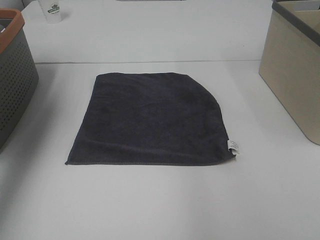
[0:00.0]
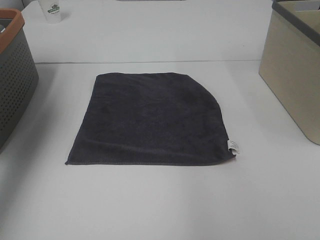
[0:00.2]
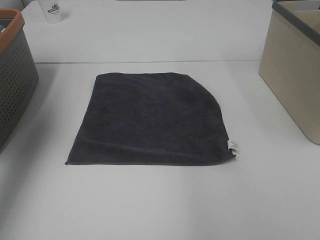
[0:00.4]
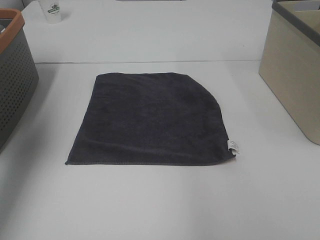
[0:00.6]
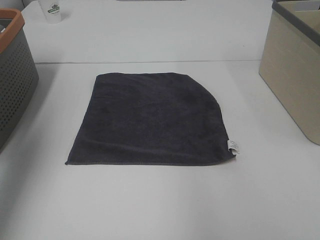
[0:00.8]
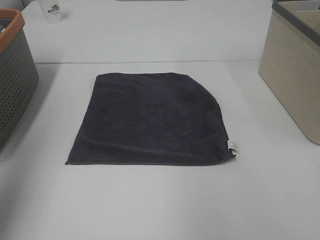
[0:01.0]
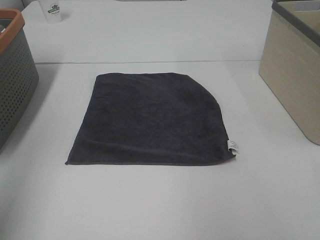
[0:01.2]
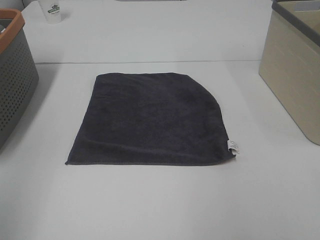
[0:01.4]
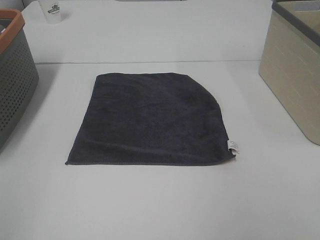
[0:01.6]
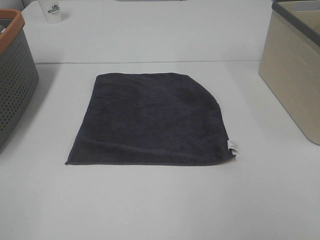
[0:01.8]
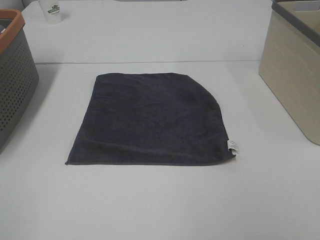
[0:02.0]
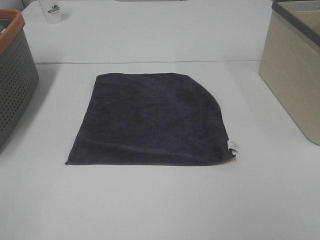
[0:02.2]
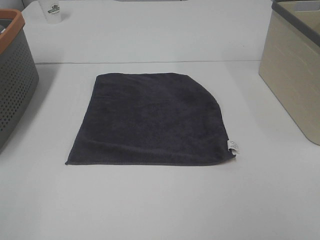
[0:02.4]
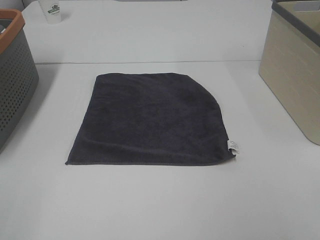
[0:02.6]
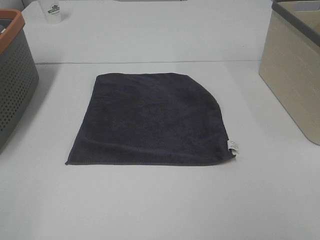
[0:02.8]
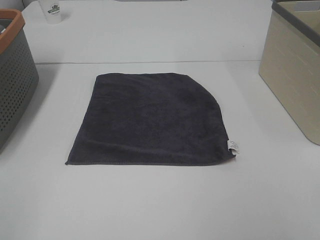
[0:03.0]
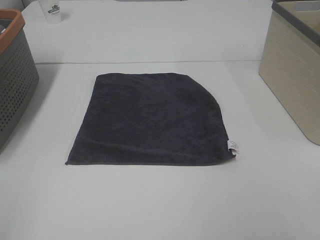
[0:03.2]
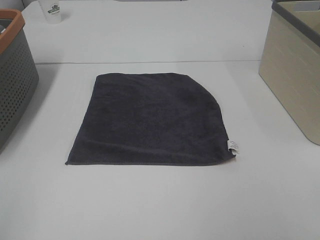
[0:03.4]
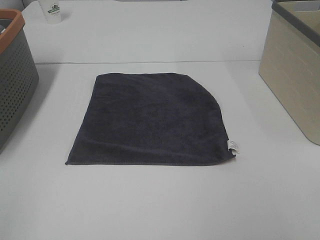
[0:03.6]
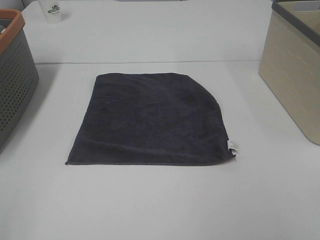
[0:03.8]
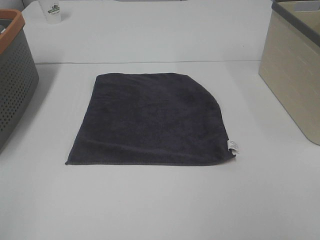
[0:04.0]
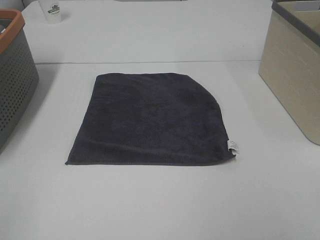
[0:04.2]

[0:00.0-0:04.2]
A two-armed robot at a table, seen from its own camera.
Task of the whole recording: Remove the towel and place it.
0:00.0 to 0:01.4: The left gripper is displaced backward by roughly 30 cm.
0:02.8 to 0:04.2: Both grippers stay put.

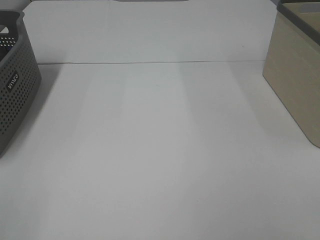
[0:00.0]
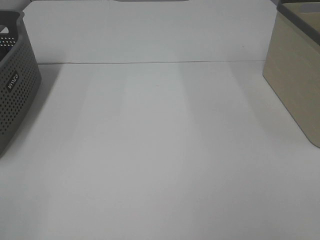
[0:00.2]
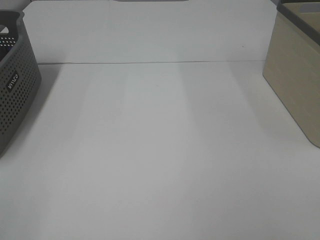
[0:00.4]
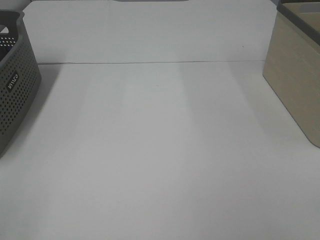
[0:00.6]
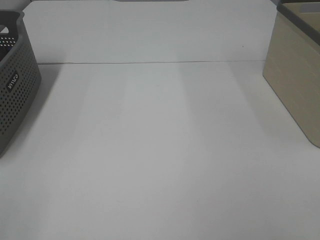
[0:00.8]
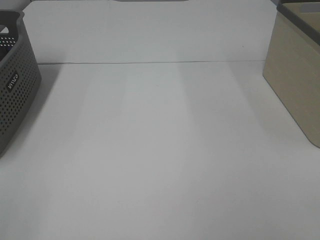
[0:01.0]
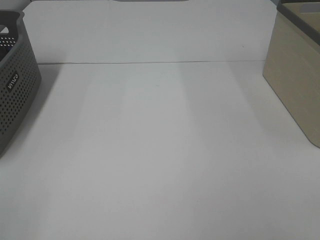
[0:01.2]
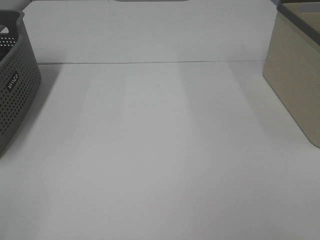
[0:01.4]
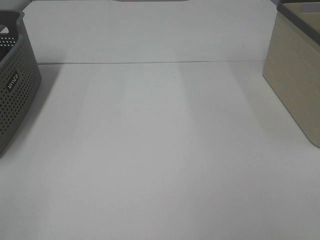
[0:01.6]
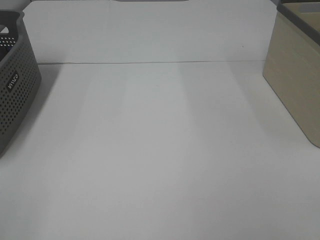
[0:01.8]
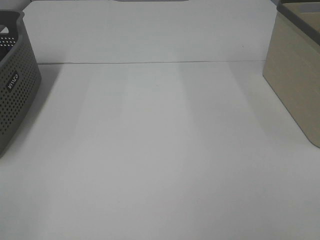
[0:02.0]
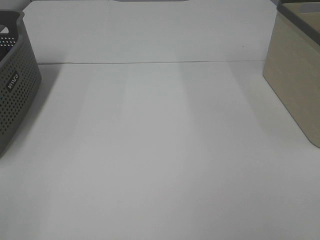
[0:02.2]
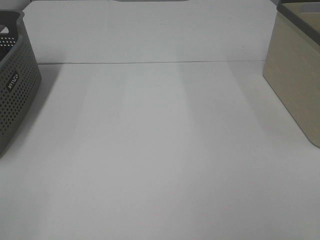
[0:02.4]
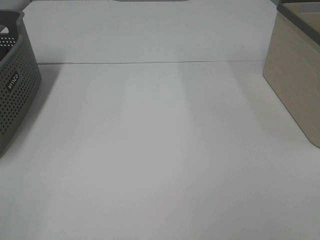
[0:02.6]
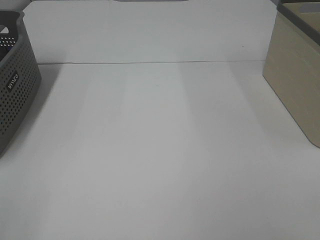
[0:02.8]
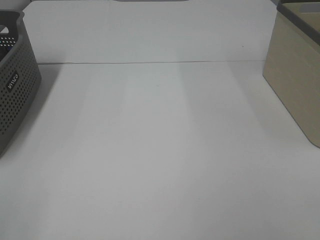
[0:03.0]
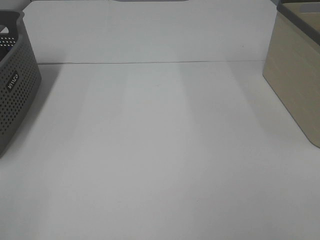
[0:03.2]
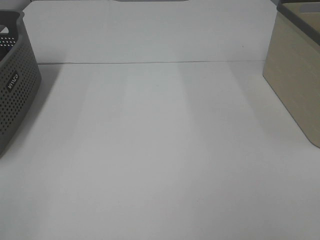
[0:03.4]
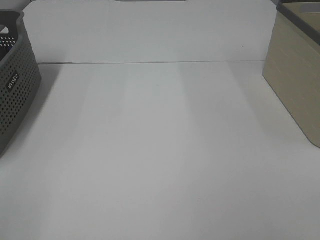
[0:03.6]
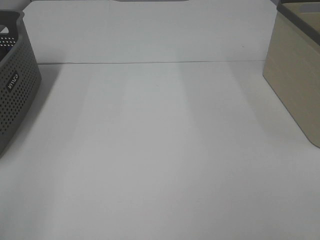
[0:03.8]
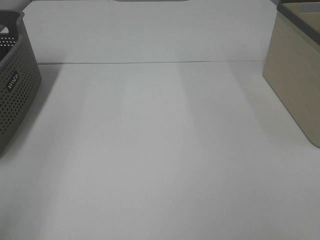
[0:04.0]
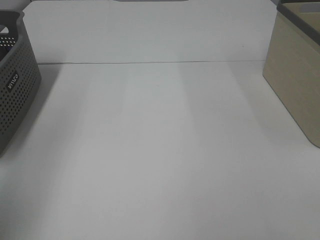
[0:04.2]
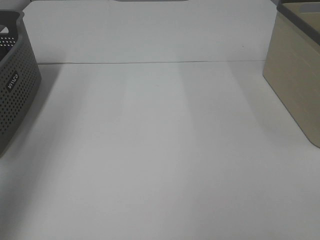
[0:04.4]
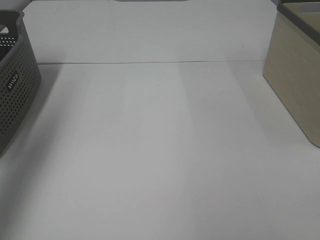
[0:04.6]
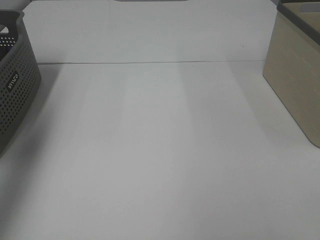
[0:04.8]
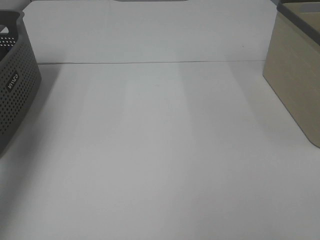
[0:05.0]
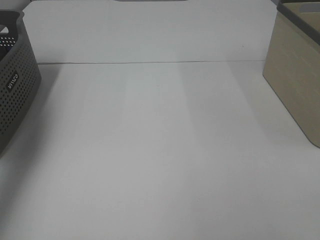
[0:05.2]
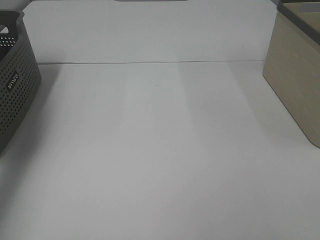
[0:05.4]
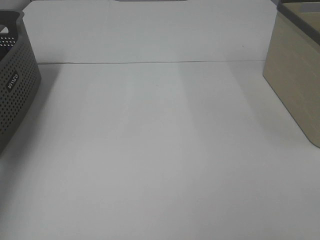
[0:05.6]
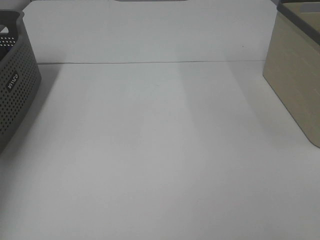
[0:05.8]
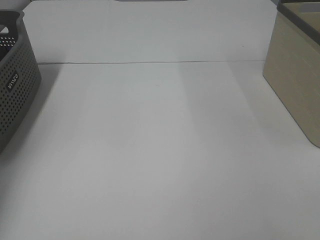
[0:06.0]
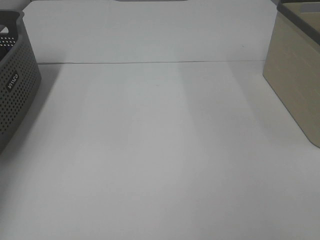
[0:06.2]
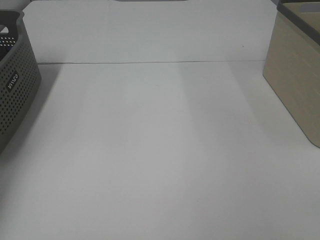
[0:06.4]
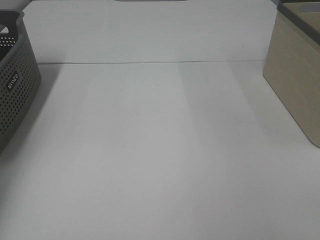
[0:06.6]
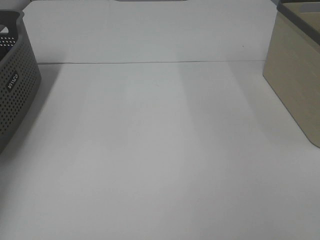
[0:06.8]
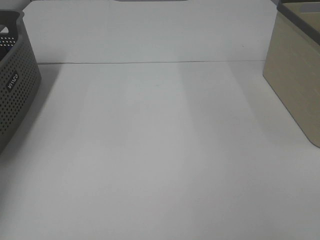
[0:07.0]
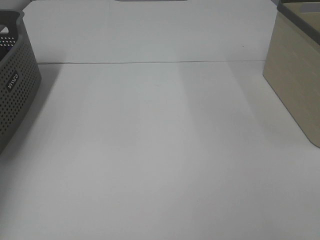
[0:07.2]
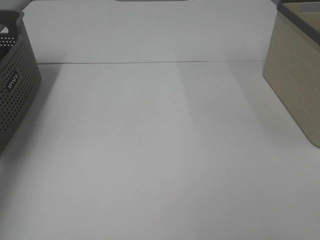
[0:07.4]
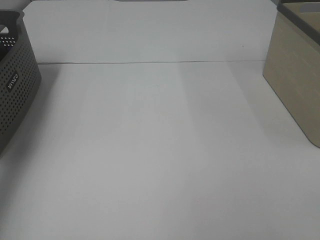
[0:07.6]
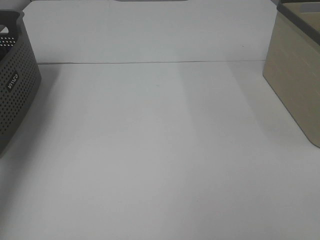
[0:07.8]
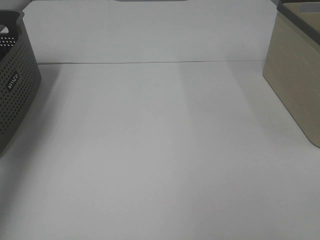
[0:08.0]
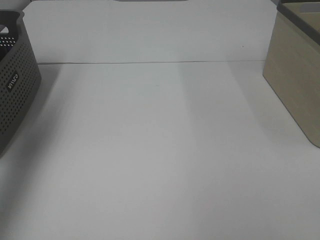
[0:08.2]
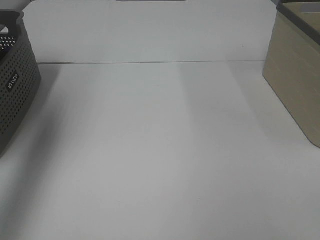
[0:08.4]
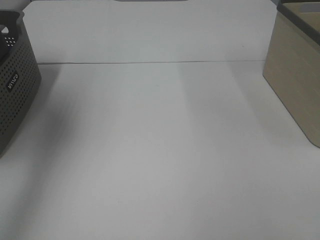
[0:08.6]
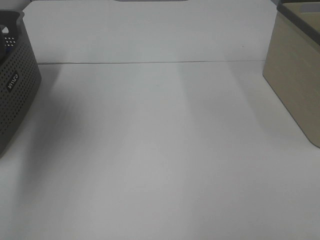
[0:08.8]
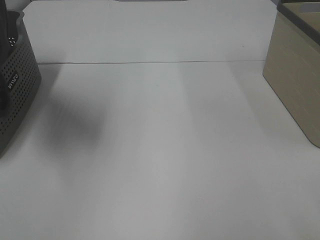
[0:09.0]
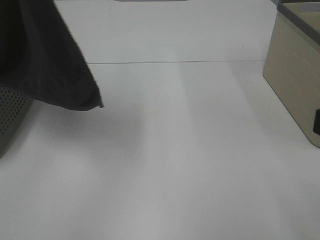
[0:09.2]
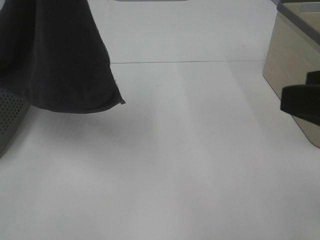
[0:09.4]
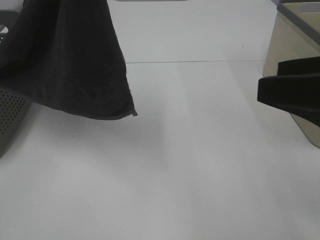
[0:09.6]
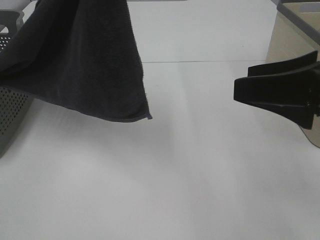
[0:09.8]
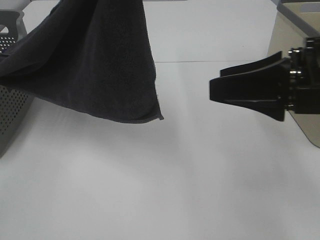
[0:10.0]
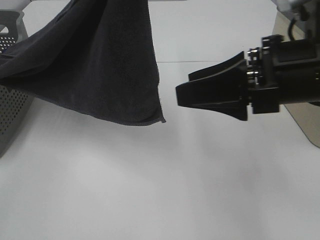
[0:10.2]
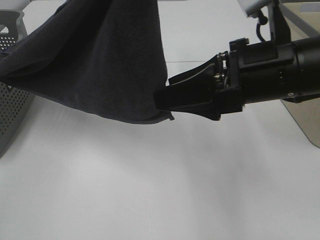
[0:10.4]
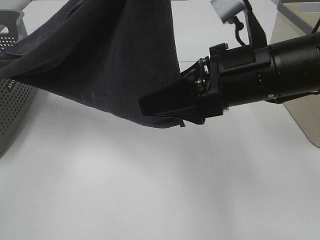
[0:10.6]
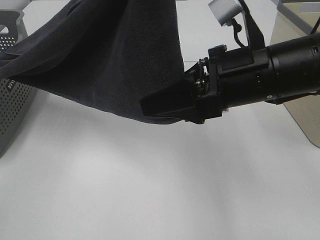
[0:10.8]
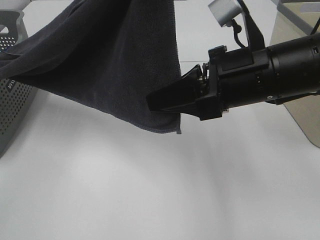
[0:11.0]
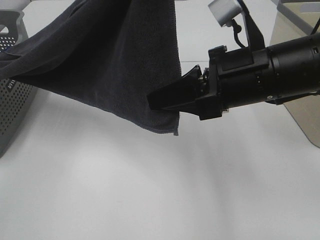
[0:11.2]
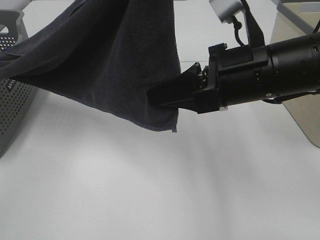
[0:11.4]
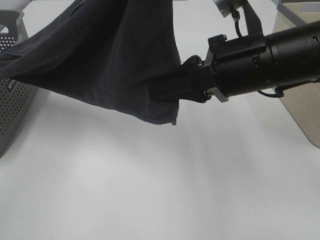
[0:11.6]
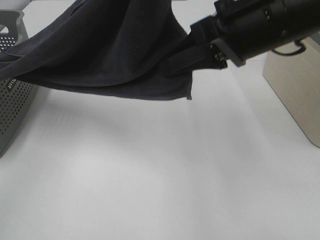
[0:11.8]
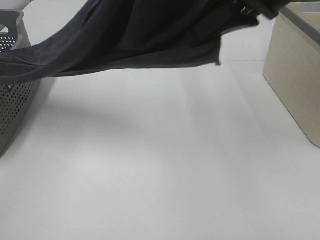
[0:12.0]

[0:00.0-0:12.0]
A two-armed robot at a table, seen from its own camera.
Task of the whole recording: Remove the towel and place it.
Step, 0:08.4 to 0:11.4: Right hand: grab a corner of the grey towel and straighten it.
0:00.0 to 0:03.0: The two grippers keep their place.
0:03.0 to 0:04.4: The left gripper shifts approximately 25 cm forward and upward.
0:04.4 to 0:06.0: The left gripper moves forward, downward and to the left, roughly 30 cm.
0:06.0 to 0:07.6: The left gripper goes approximately 15 cm upward, and closes up.
0:07.6 to 0:09.0: The left gripper heads to the right, upward and backward, covering approximately 25 cm.
0:09.0 to 0:10.4: The right gripper goes some 20 cm forward and to the left; the left gripper moves to the right, some 15 cm.
0:10.4 to 0:12.0: The right gripper goes some 10 cm upward, and closes.

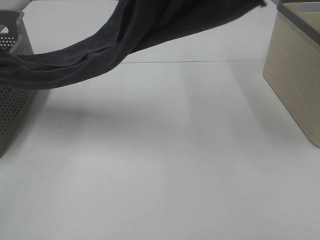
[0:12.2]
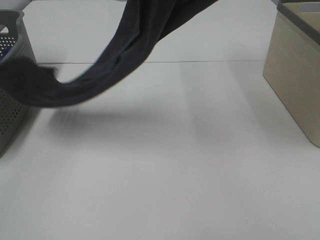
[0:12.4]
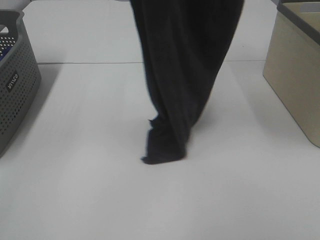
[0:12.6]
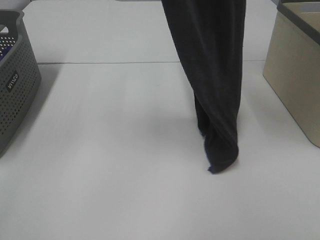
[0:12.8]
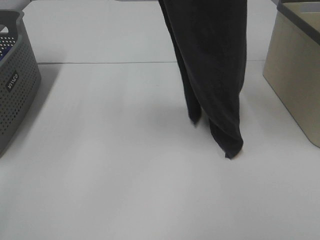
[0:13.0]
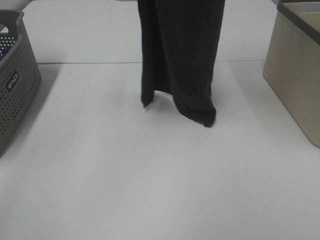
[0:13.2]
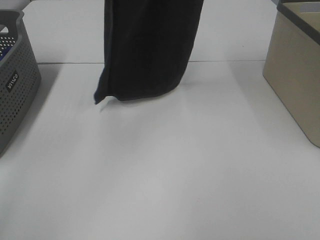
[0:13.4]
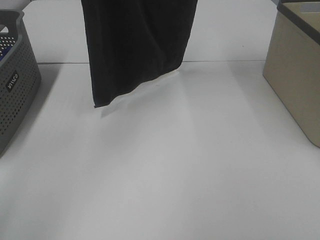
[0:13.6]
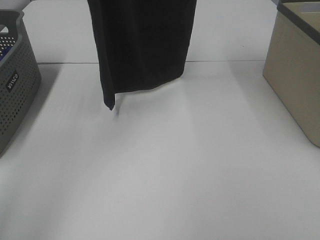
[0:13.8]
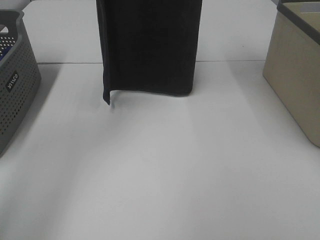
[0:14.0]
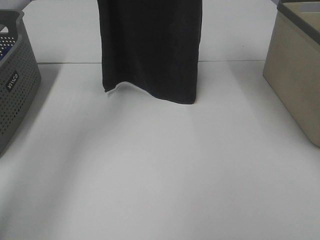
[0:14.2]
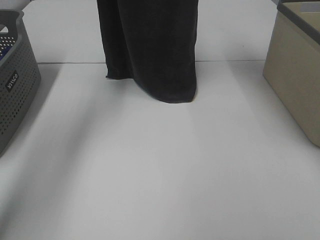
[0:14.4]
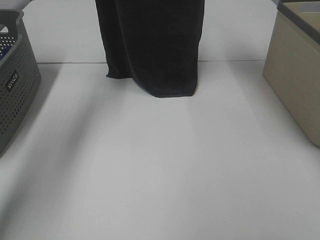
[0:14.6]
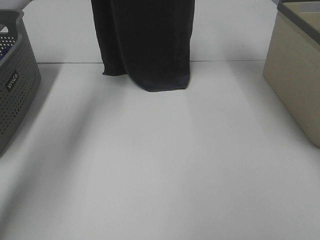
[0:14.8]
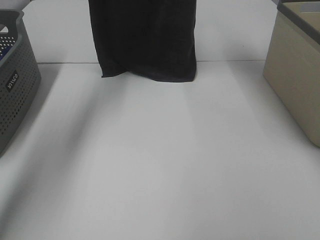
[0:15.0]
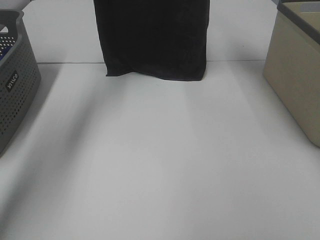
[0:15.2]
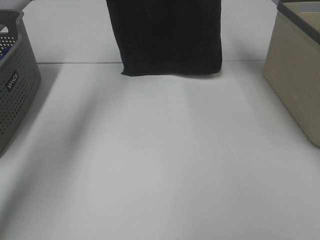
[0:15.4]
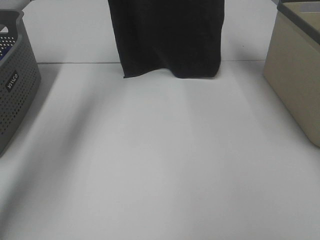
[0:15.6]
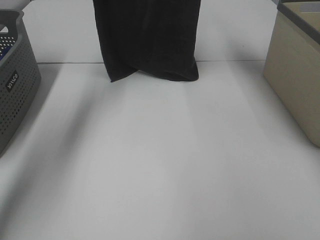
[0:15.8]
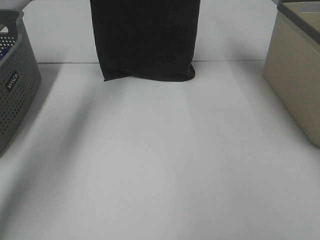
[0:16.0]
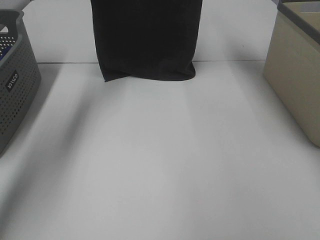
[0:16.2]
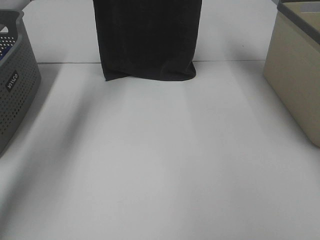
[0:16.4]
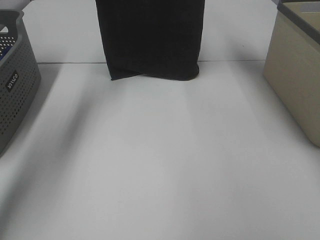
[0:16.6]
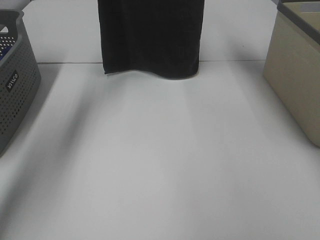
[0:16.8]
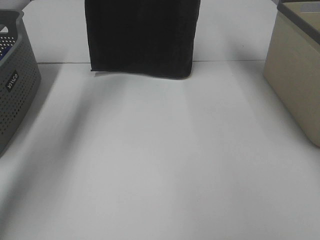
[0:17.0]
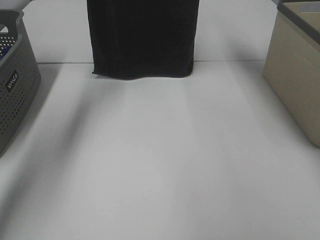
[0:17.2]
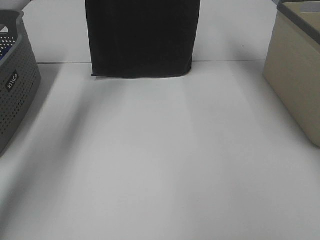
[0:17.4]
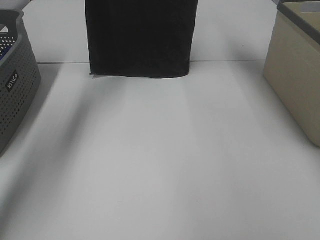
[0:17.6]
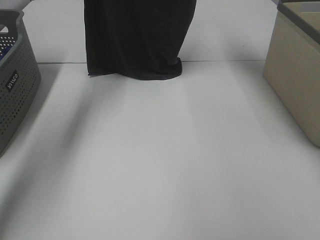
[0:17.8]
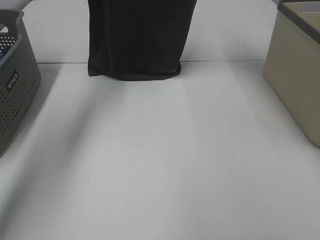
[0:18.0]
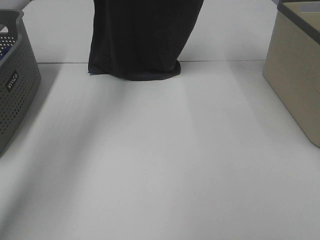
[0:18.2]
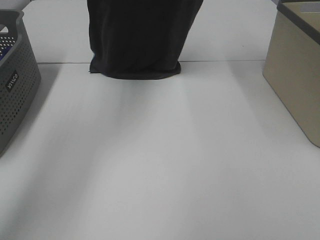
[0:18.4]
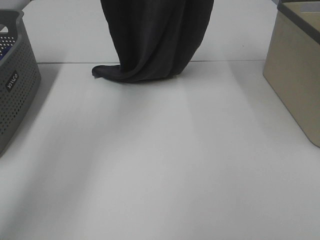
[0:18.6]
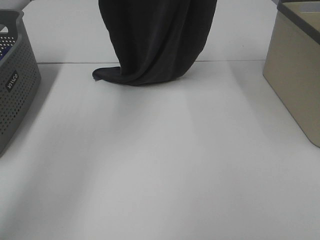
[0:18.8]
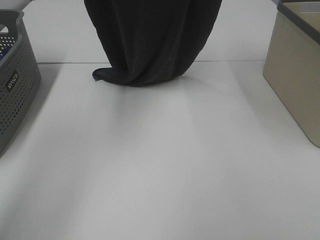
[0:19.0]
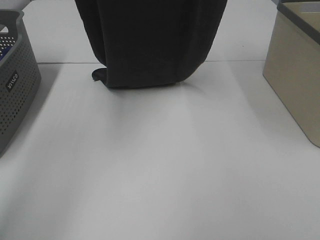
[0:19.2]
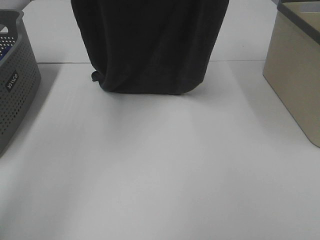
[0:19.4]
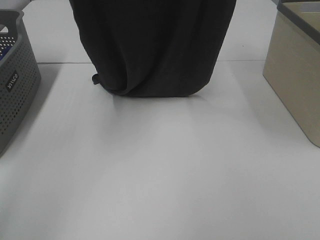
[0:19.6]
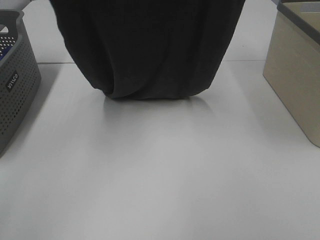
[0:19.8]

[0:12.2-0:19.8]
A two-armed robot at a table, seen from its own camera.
Task of the whole recording: Remove the towel and place it.
0:12.2 to 0:13.8: The right gripper heads forward and upward, covering about 15 cm. The left gripper shifts some 15 cm forward and to the left.
0:13.8 to 0:15.2: The right gripper shifts about 5 cm forward, while the left gripper moves forward and downward, about 15 cm.
0:15.2 to 0:16.8: The grippers make only small movements.
0:18.2 to 0:19.8: The grippers both shift backward by some 20 cm.
